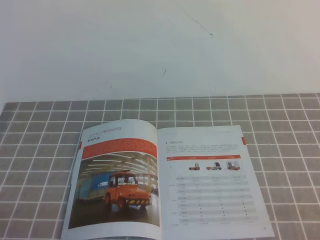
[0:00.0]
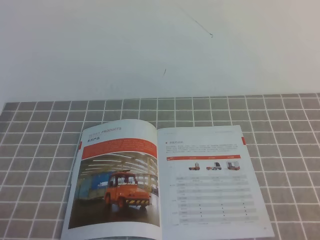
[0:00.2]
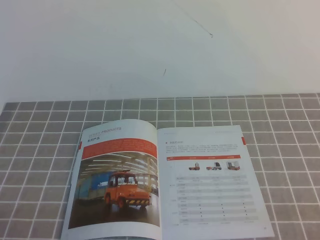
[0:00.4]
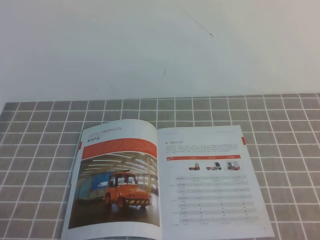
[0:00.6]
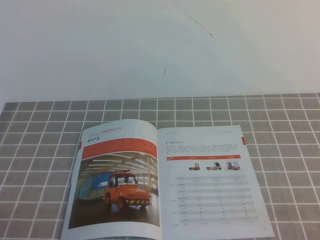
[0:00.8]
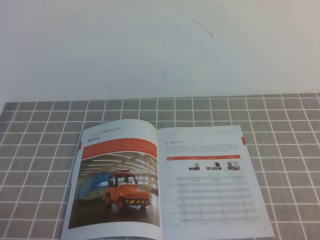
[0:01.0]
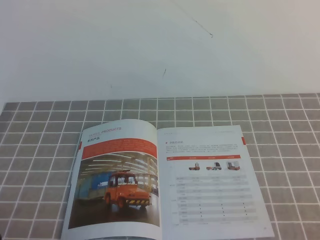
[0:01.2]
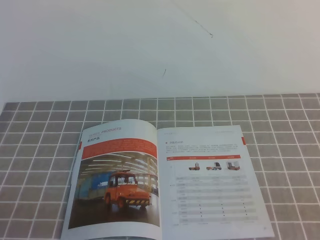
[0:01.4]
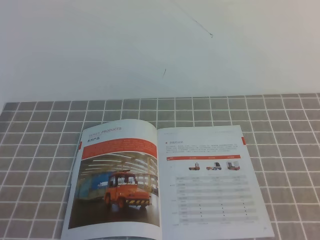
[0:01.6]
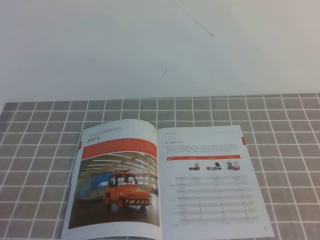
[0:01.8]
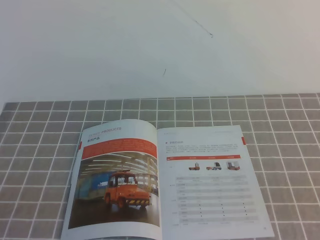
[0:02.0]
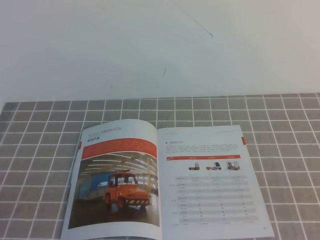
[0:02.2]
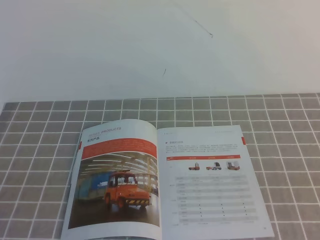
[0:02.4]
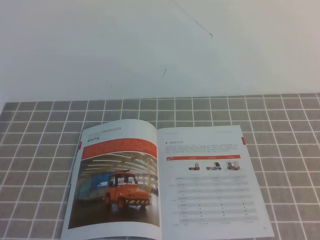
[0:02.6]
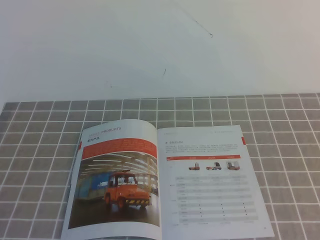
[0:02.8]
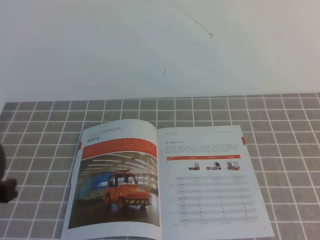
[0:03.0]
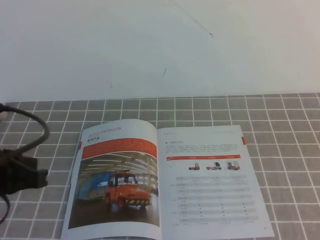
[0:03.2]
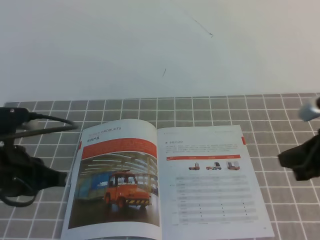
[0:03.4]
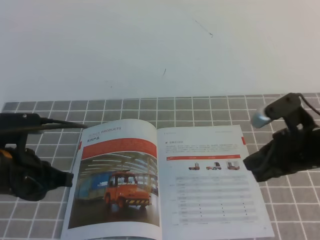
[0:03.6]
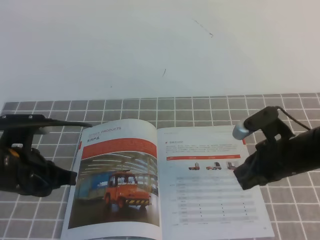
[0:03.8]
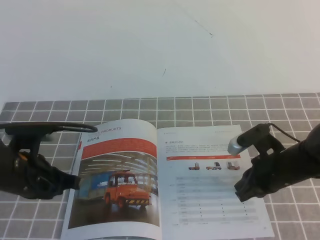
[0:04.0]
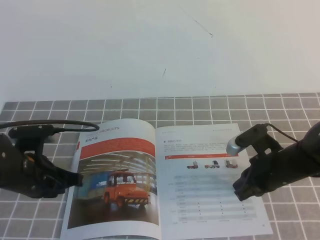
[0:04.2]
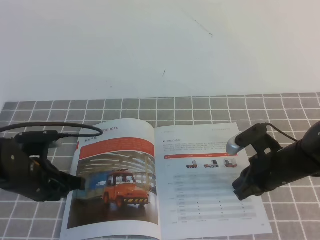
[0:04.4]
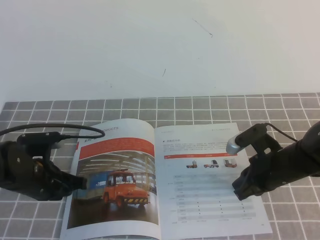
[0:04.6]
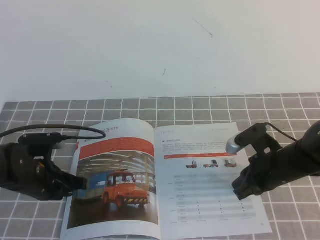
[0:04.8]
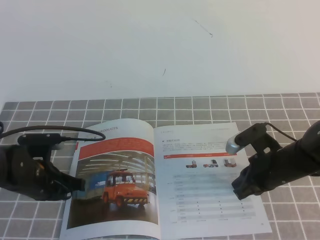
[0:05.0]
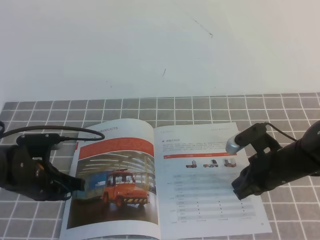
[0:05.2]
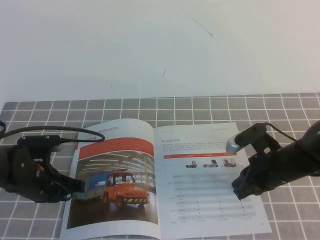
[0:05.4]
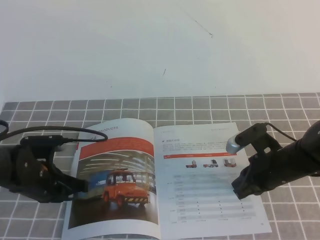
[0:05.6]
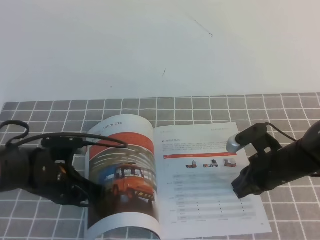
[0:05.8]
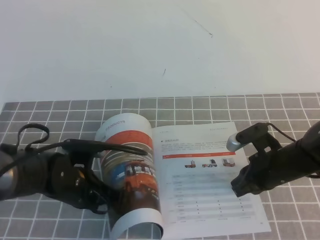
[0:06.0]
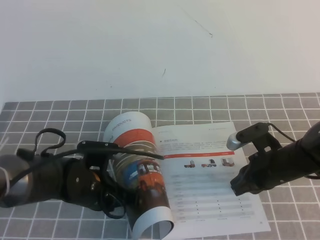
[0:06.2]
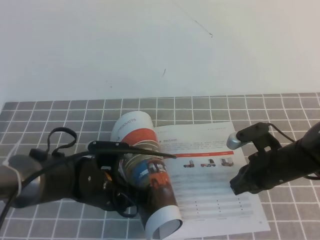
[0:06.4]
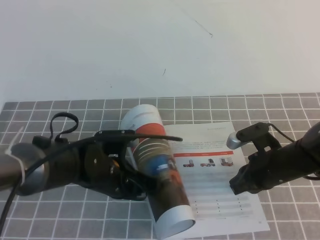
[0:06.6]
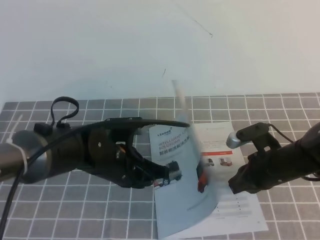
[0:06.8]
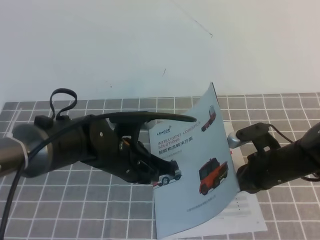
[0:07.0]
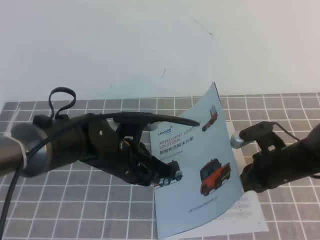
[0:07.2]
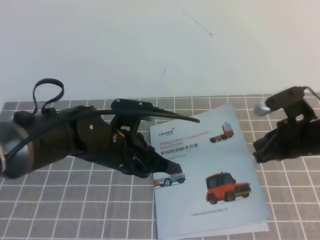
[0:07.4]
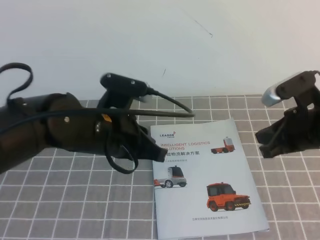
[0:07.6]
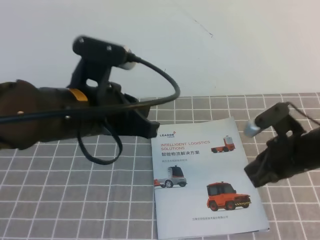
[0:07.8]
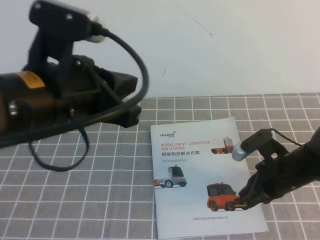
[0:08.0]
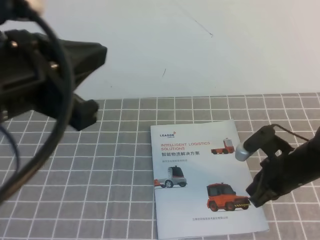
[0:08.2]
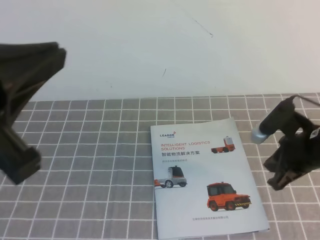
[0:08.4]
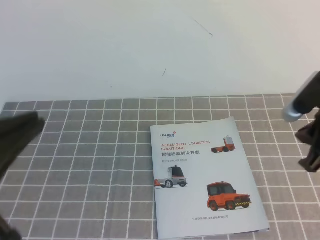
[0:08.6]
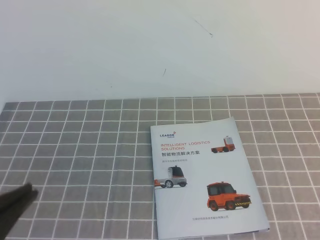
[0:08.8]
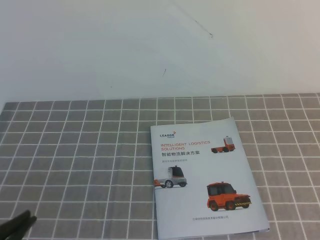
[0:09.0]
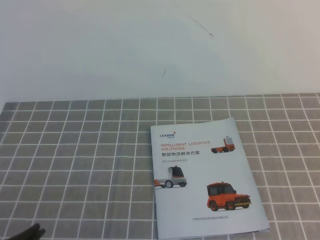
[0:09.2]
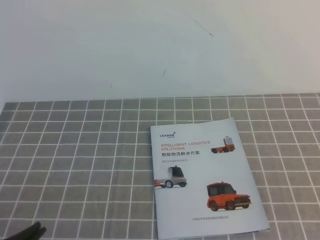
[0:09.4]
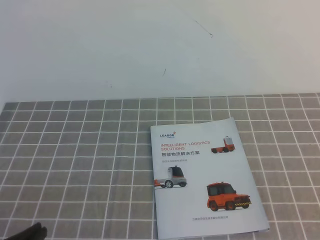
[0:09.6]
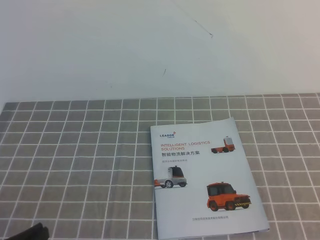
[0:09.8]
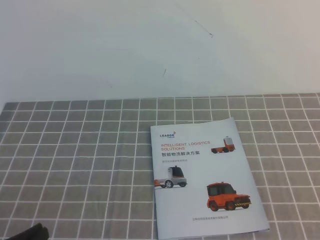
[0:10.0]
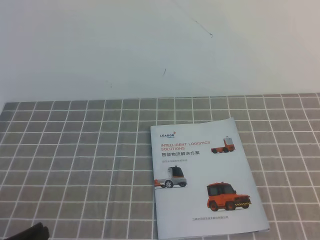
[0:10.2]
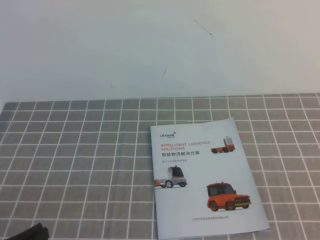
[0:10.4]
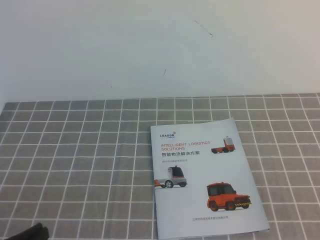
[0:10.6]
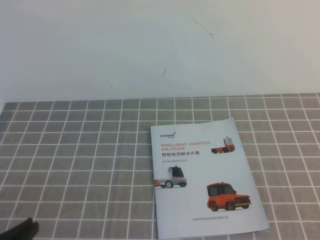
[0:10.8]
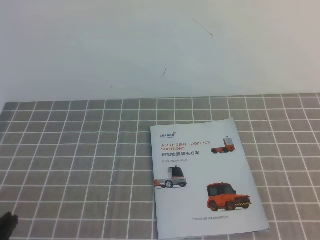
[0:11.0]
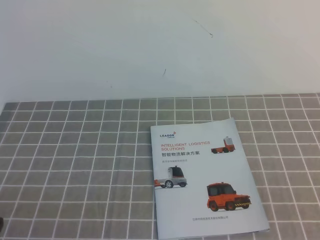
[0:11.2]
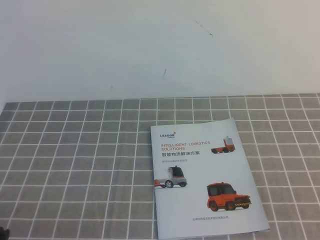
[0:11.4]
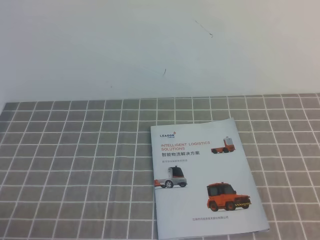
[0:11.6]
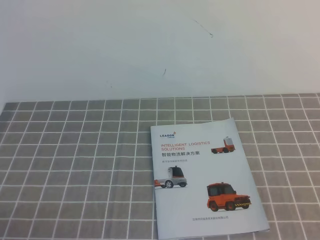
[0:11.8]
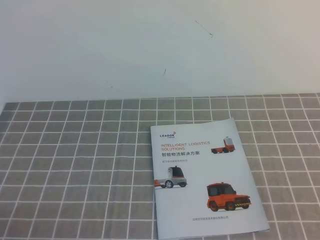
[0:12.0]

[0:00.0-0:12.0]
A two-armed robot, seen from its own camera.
Task of the whole recording: on the grey tablecloth, hold the book with one hand and close it with the other.
0:01.6 to 0:03.0: The left gripper moves upward and forward, about 15 cm.
0:03.0 to 0:04.4: The right gripper travels downward, forward and to the left by some 30 cm. The left gripper goes approximately 25 cm downward and forward.
0:04.4 to 0:06.0: The left gripper moves to the right, some 5 cm.
0:06.0 to 0:07.6: The right gripper goes some 10 cm upward. The left gripper travels upward and to the right by approximately 15 cm.
0:07.6 to 0:09.0: The right gripper shifts roughly 20 cm upward, backward and to the right. The left gripper goes approximately 25 cm backward and to the left.
